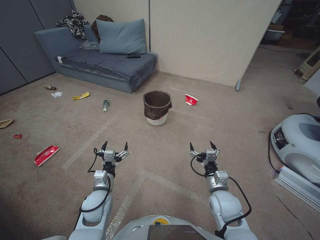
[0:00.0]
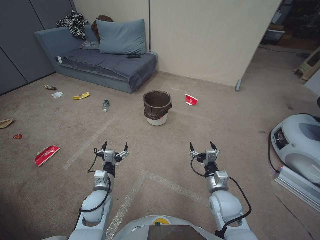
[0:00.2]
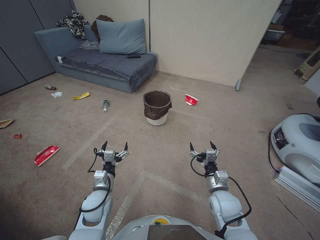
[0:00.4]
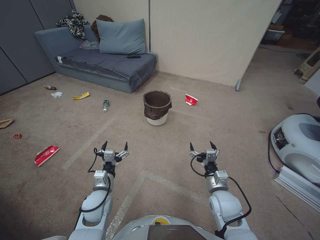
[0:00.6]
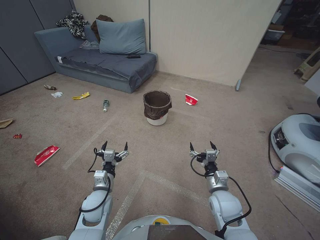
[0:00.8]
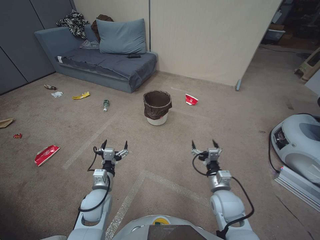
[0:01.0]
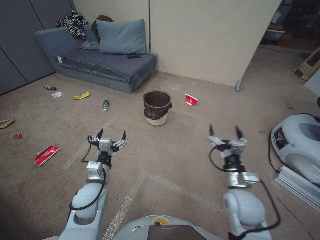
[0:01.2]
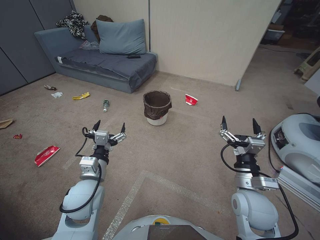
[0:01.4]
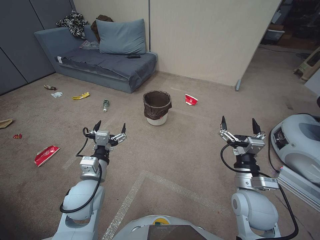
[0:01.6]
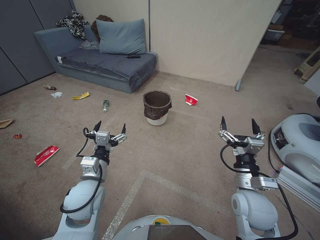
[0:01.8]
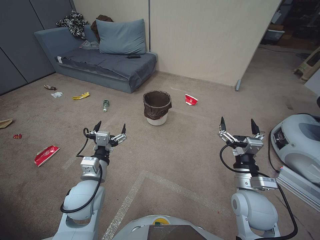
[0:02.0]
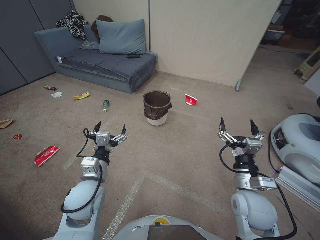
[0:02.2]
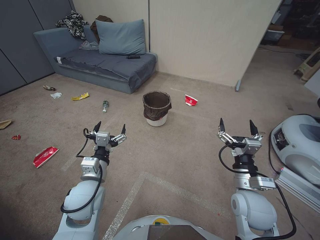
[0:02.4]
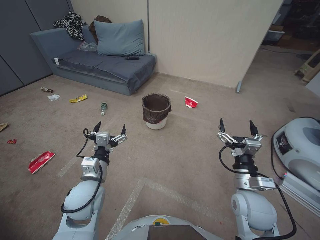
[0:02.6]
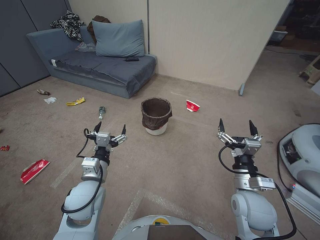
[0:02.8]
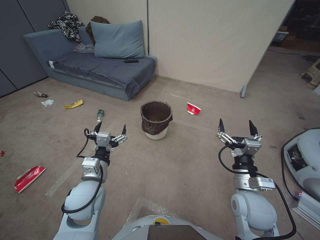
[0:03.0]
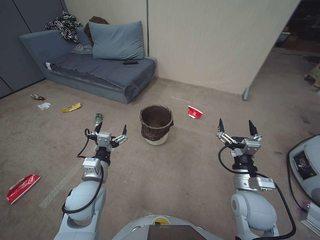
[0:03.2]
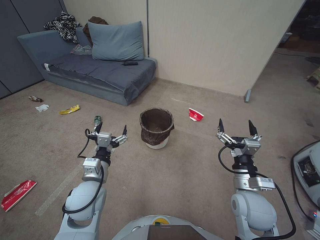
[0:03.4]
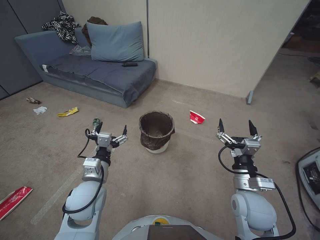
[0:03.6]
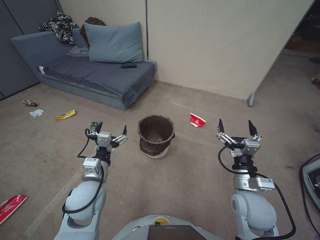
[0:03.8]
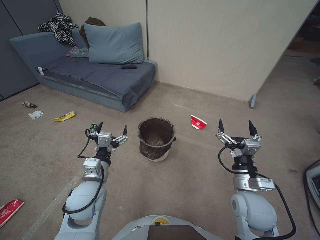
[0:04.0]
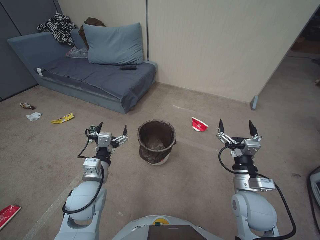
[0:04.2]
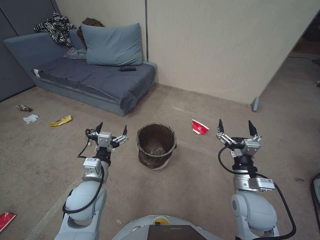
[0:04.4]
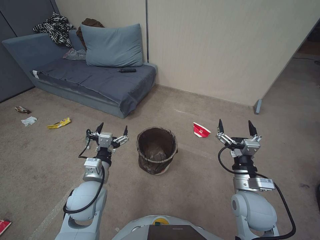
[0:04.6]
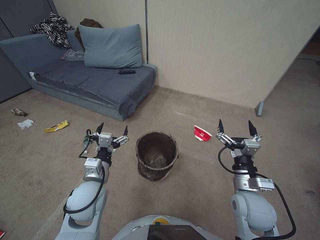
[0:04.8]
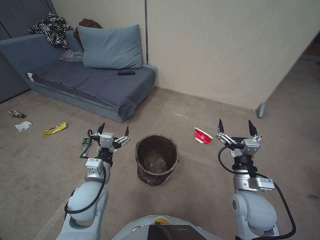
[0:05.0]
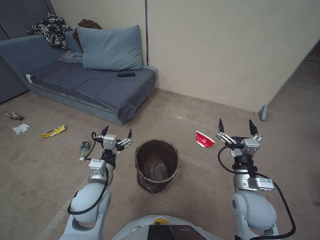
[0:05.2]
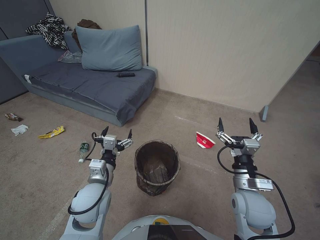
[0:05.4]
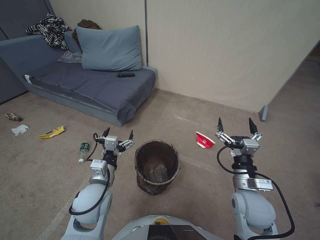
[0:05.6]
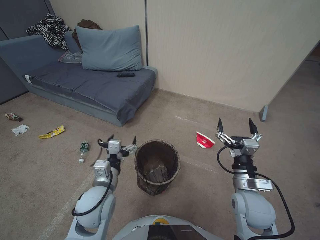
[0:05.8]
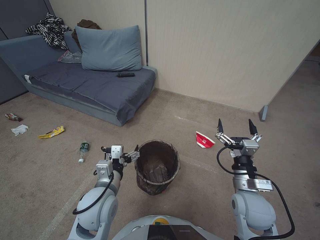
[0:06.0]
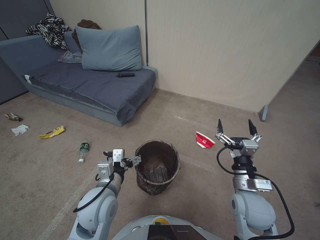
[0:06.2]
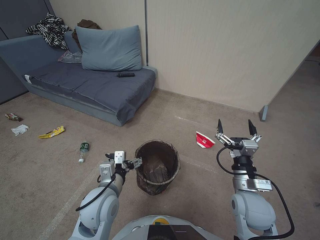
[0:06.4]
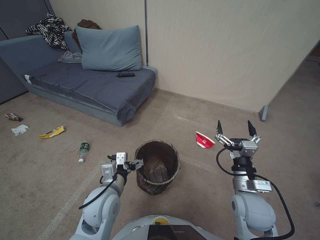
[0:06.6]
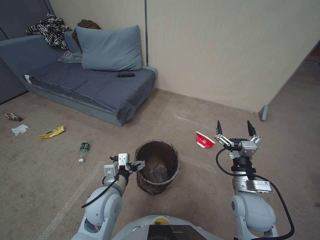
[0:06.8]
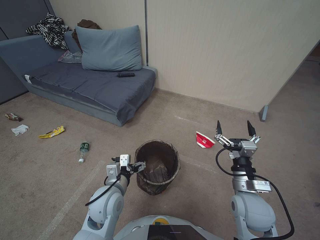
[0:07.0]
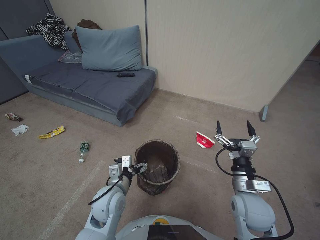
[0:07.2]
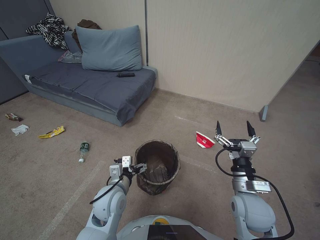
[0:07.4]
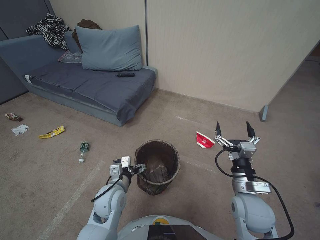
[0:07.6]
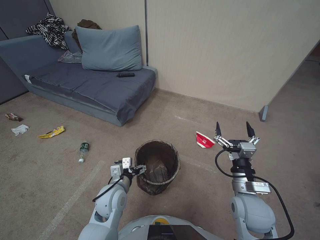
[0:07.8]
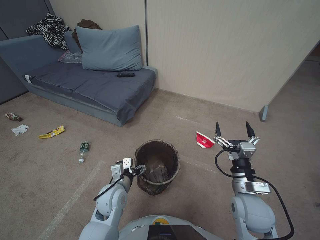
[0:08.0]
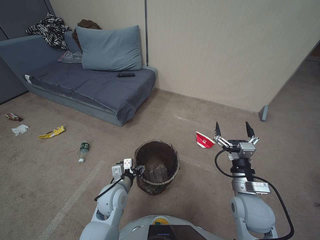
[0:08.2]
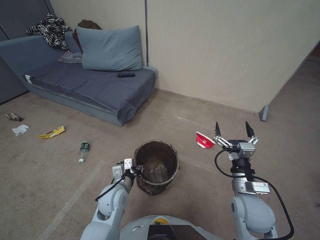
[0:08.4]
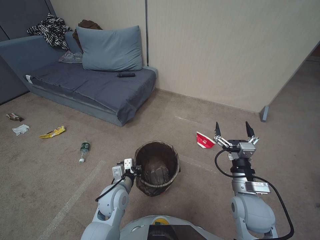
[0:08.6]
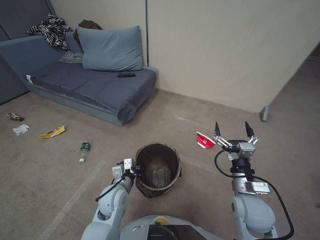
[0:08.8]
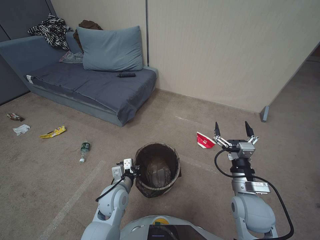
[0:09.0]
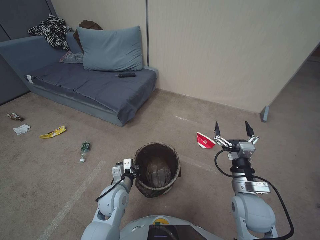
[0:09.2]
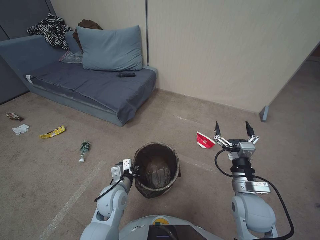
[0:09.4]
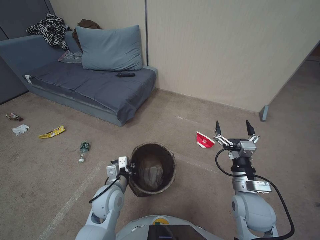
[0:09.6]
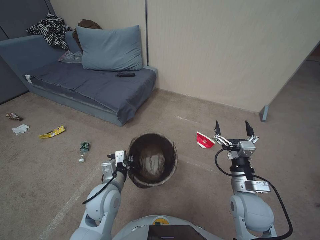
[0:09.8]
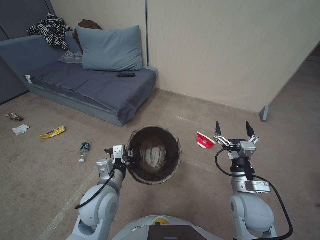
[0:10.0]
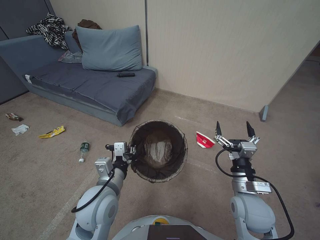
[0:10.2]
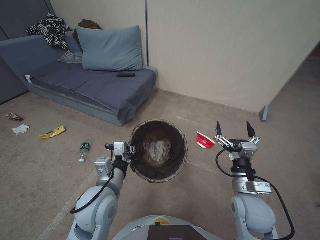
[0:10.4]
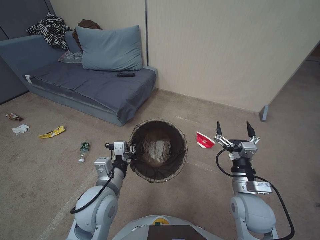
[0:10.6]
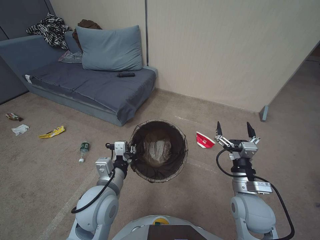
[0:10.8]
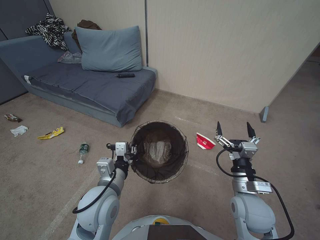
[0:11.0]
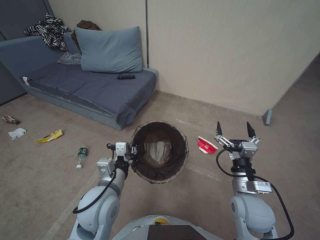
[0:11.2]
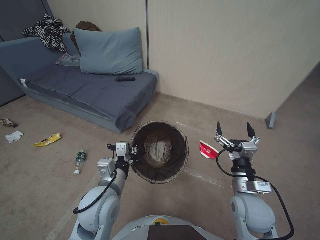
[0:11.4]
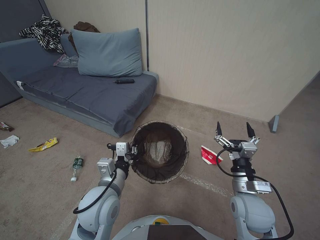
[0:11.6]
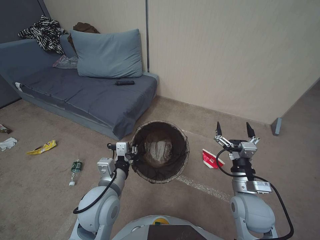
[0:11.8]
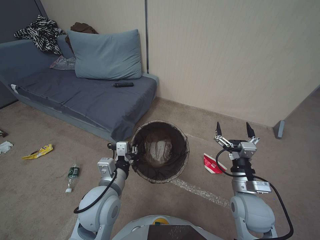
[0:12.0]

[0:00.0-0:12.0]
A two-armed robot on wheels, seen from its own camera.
Task of the whole recording: Pick up the trash bin, then pick up the garbage from the floor and place it into the trash bin.
0:01.6 to 0:03.0: Both grippers stay about where they are.
0:06.0 to 0:07.6: The left gripper travels downward by roughly 5 cm.
0:07.6 to 0:09.0: The left gripper closes up.
0:09.0 to 0:10.4: The left gripper travels upward by approximately 15 cm.
0:10.4 to 0:12.0: Both grippers stay put.

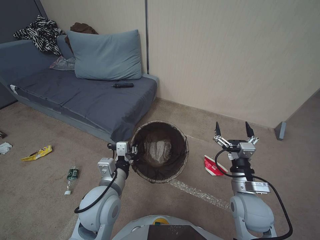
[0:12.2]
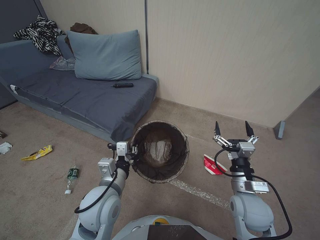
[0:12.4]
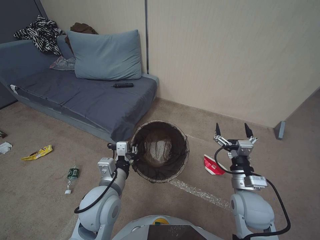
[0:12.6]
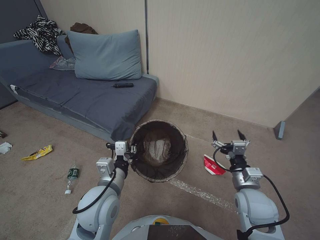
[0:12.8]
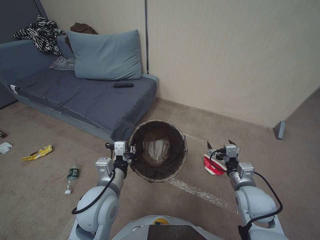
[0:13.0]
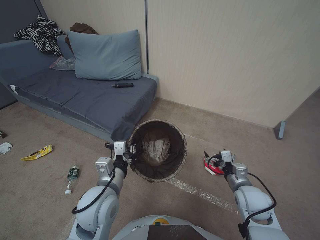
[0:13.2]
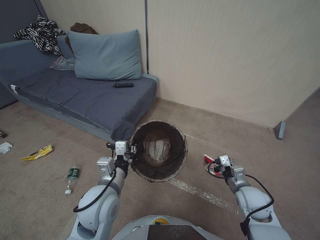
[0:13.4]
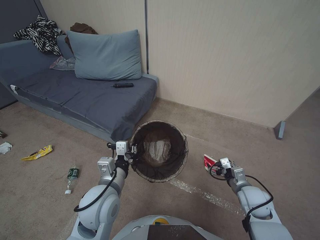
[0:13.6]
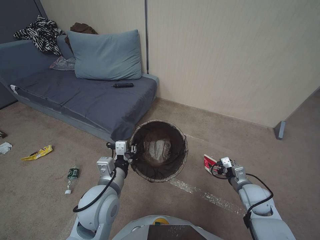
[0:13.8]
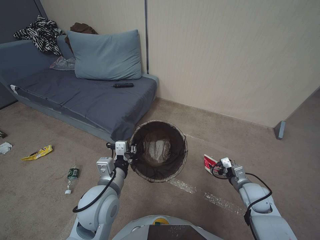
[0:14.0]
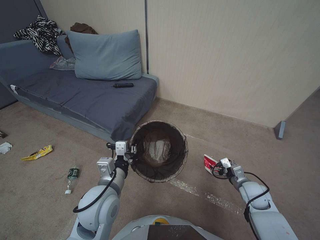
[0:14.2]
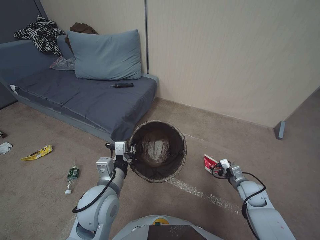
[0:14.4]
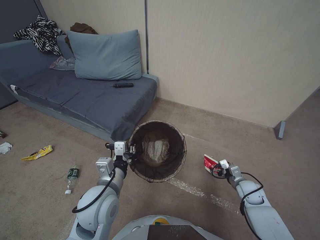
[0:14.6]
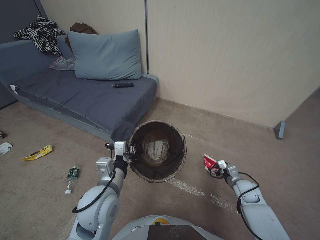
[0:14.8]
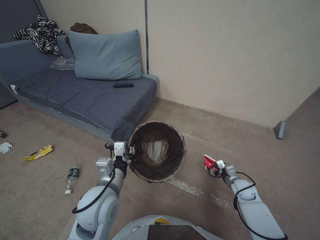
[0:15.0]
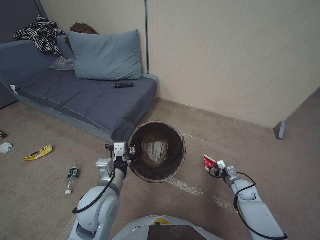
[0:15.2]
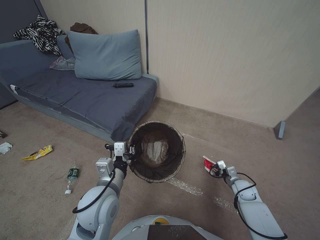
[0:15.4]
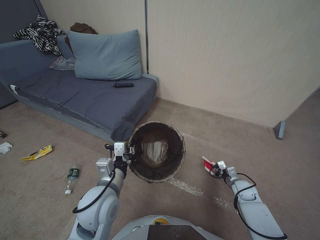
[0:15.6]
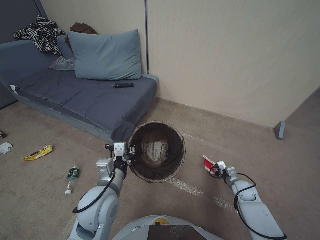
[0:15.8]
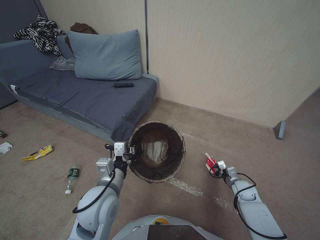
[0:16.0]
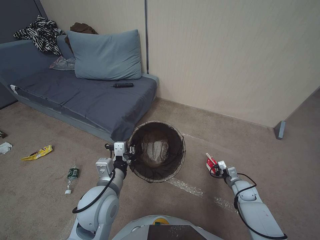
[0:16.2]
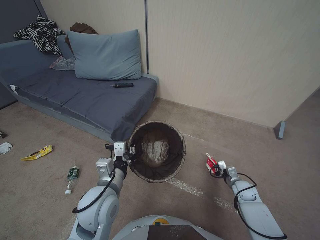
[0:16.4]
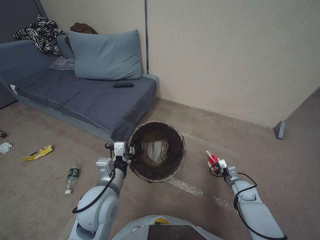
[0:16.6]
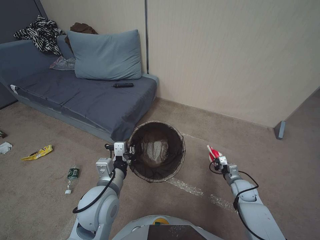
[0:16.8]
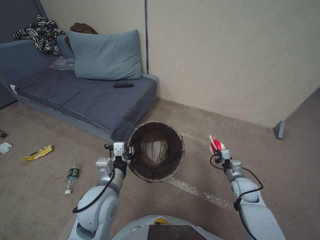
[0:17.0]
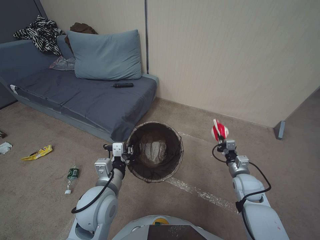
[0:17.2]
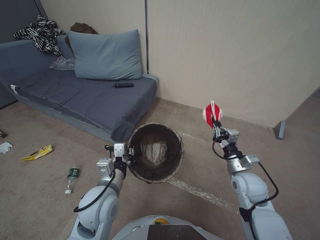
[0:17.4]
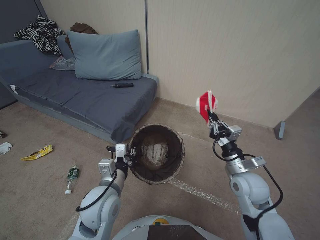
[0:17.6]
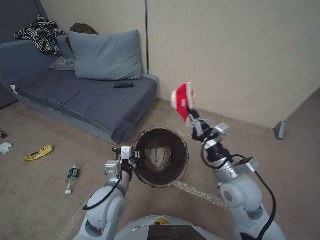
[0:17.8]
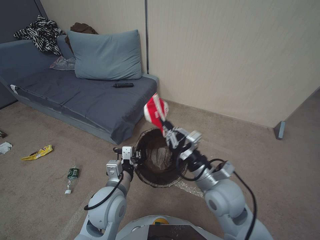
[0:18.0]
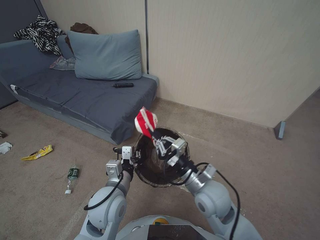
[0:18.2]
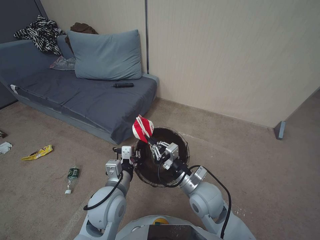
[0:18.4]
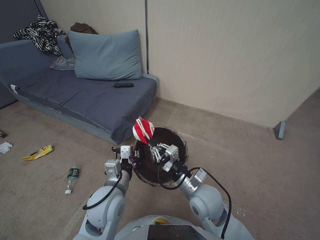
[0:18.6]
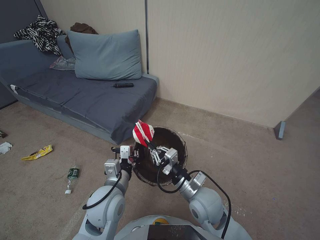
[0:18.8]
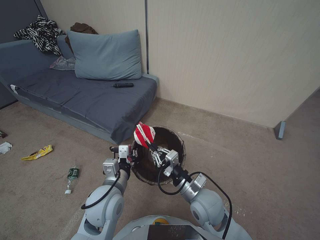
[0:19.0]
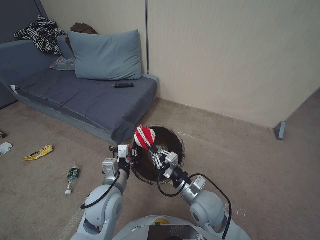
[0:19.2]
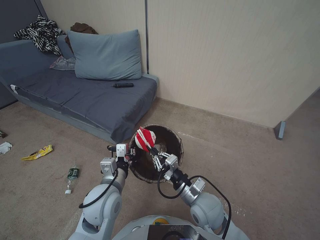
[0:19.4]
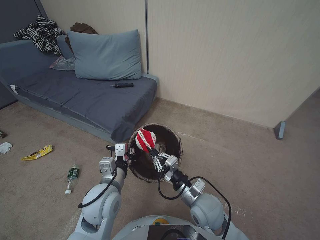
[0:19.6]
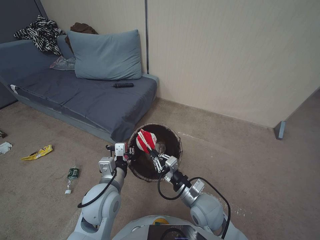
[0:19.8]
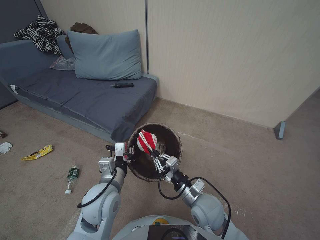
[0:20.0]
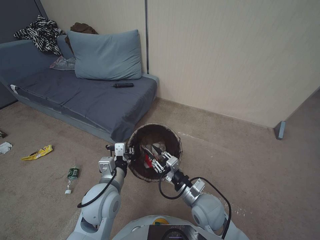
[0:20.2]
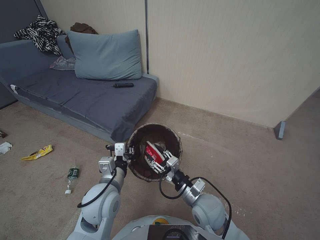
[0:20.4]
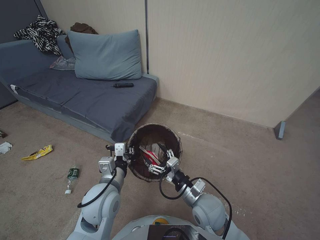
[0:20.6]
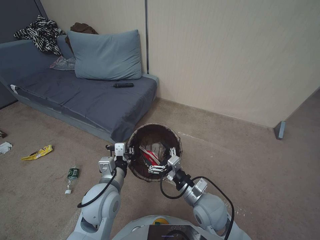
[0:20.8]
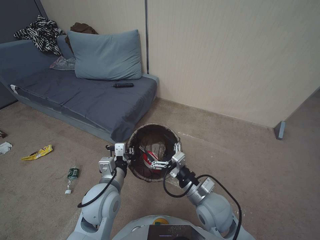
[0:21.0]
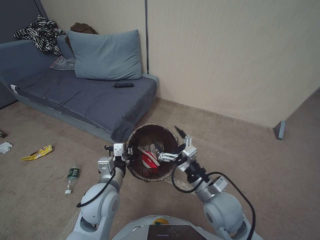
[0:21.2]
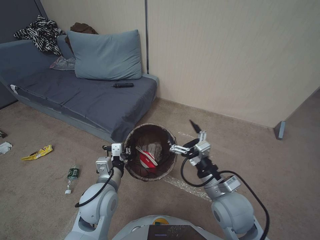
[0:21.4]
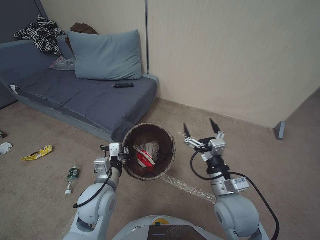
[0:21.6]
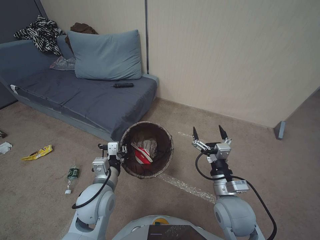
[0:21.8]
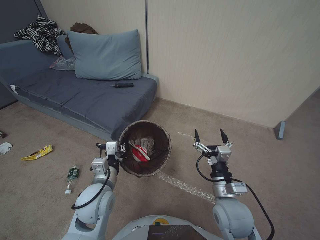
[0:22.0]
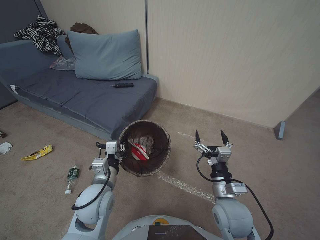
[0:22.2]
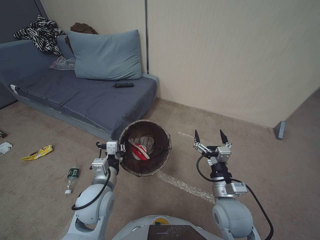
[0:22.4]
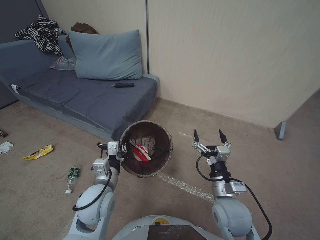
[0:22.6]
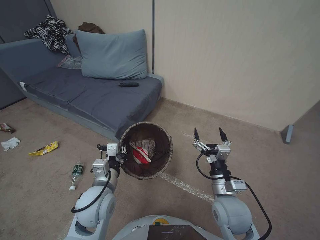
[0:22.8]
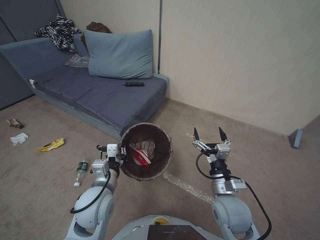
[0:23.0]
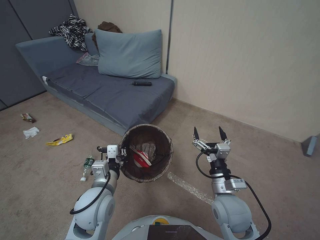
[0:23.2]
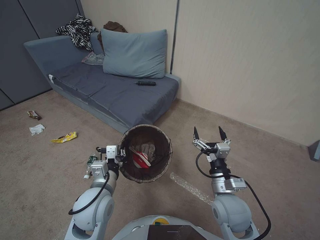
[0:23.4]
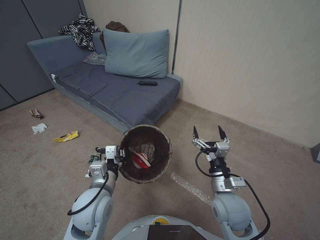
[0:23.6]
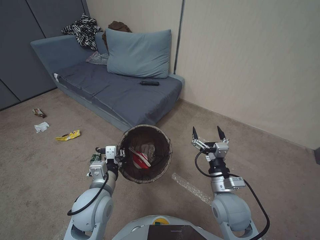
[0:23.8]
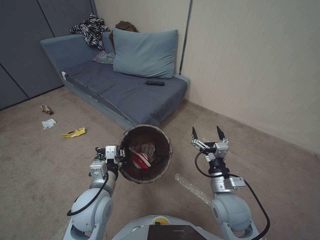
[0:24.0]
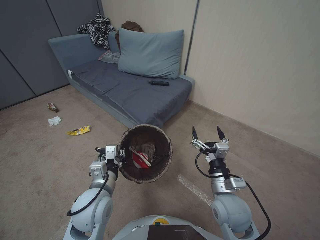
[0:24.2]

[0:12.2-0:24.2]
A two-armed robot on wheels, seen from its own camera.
Task of the whole recording: Pick up the trash bin, then pick up the garbage from the floor and place it into the trash bin.
0:12.2 to 0:13.8: The right gripper travels to the right and downward by about 10 cm.
0:13.8 to 0:15.2: The right gripper heads downward and forward, covering roughly 10 cm.
0:16.6 to 0:18.2: The right gripper travels to the left and upward by about 35 cm.
0:18.2 to 0:19.8: The right gripper is displaced downward by approximately 10 cm.
0:19.8 to 0:21.2: The right gripper changes place by about 5 cm, and opens its fingers.
0:21.2 to 0:22.6: The right gripper moves roughly 5 cm.
